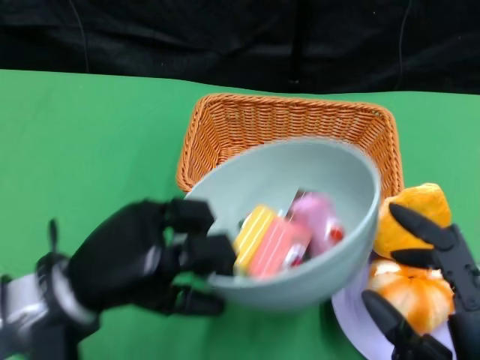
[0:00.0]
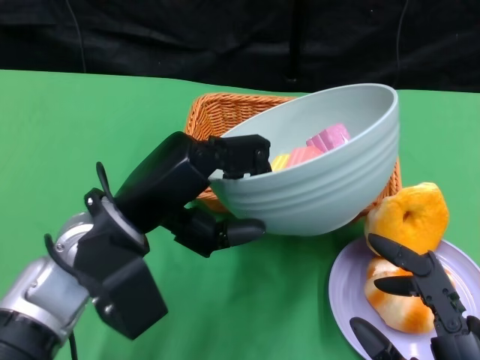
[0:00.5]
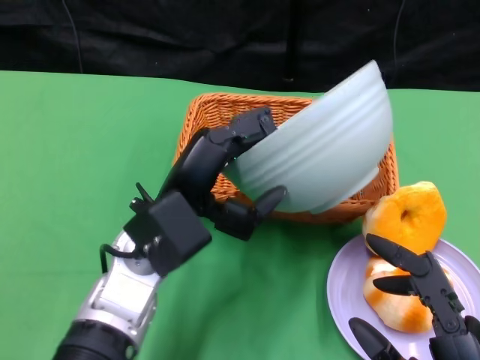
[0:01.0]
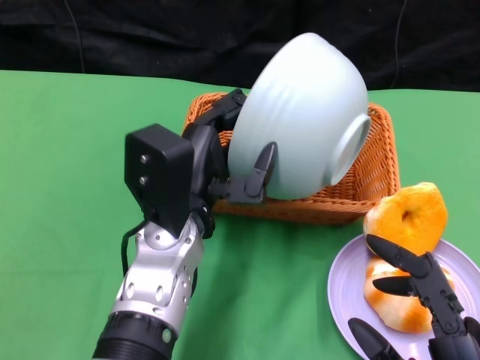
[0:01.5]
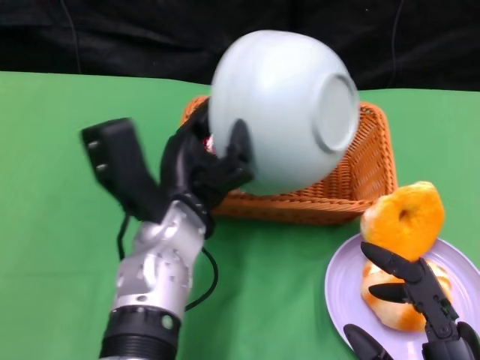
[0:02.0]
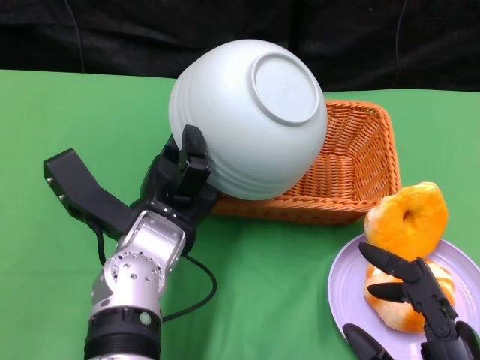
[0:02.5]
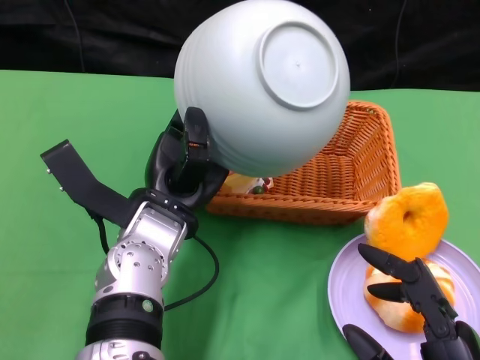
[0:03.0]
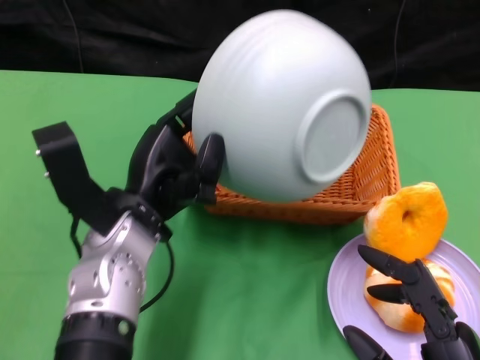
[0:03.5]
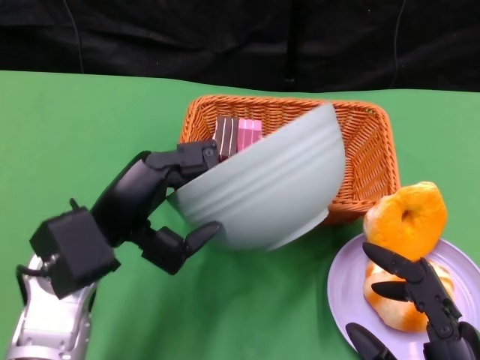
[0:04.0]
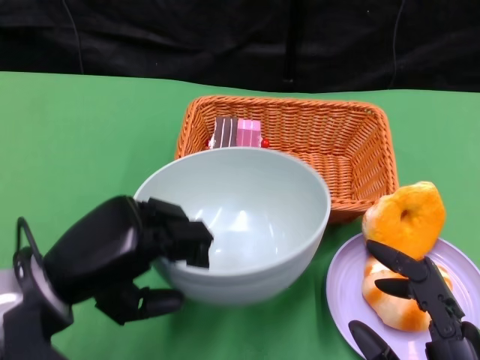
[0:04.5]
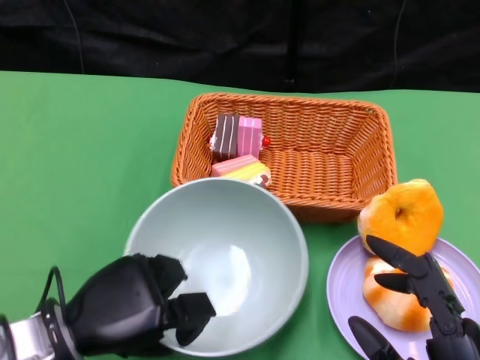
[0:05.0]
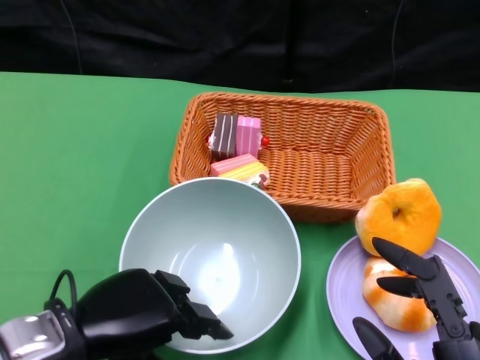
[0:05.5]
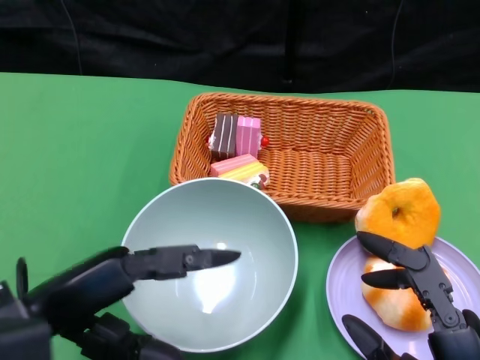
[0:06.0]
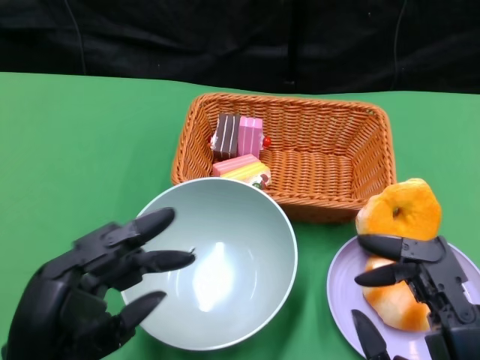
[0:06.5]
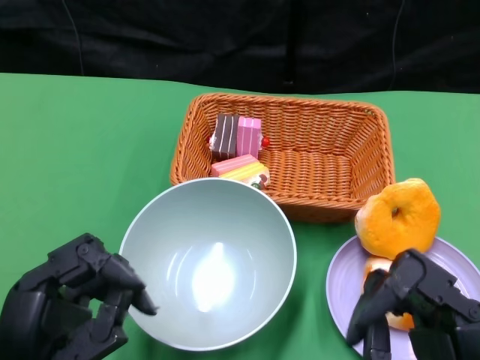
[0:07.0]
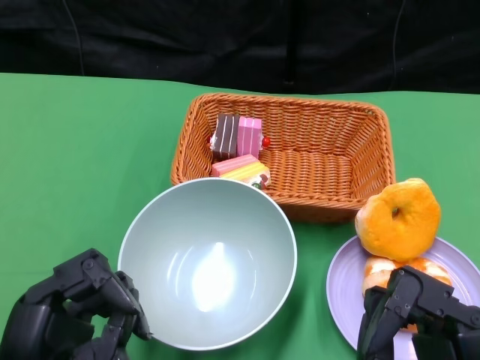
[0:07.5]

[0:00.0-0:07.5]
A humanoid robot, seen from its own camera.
Step, 0:00.0 to 0:02.5: Pour the cake into the basket with the left gripper.
Step, 0:03.0 to 0:05.5: Place the bowl on the table with the left gripper.
0:00.0 to 0:02.0: The left hand moves to the right and forward, roughly 15 cm.
0:02.0 to 0:04.0: The left hand moves to the left, approximately 10 cm.
0:04.0 to 0:05.5: The left hand travels backward by approximately 5 cm.
0:05.5 to 0:07.5: The left hand heads backward, covering about 5 cm.

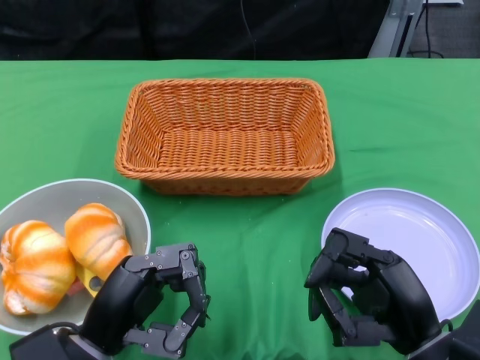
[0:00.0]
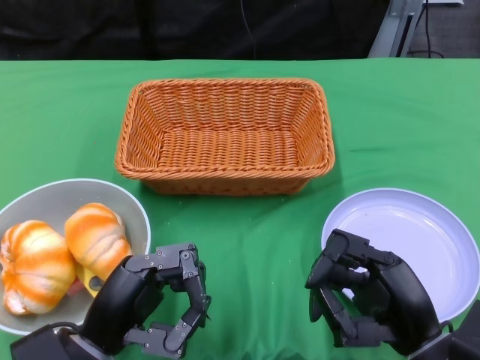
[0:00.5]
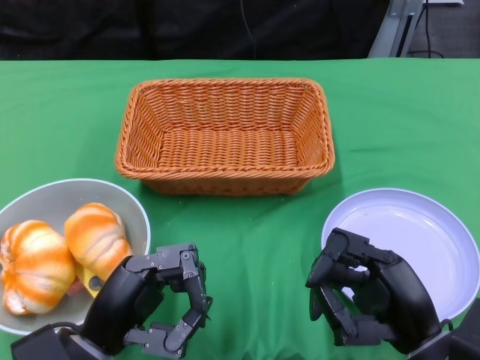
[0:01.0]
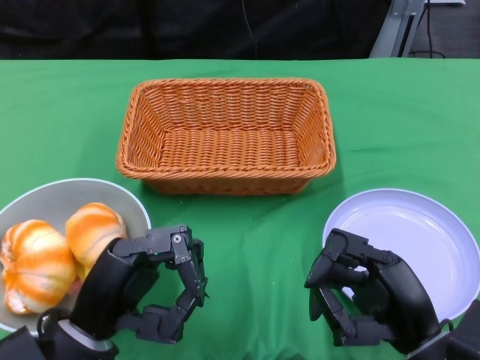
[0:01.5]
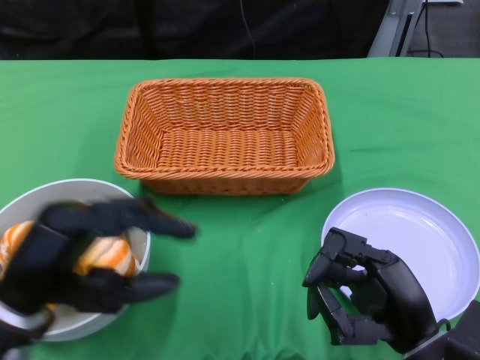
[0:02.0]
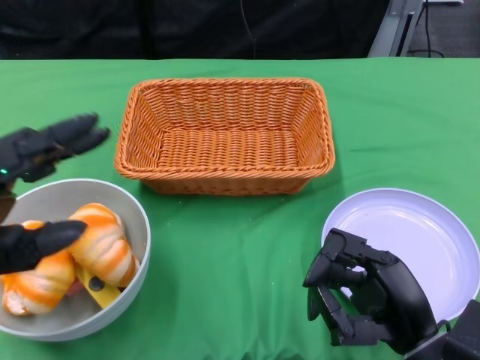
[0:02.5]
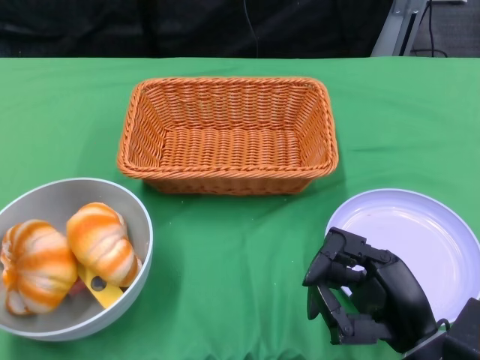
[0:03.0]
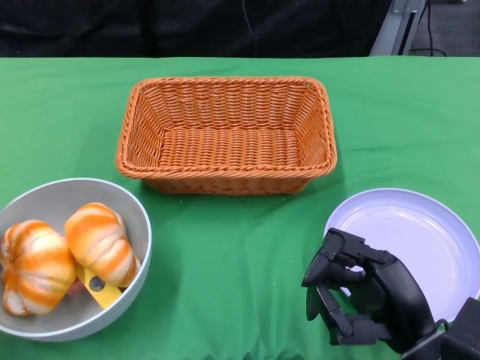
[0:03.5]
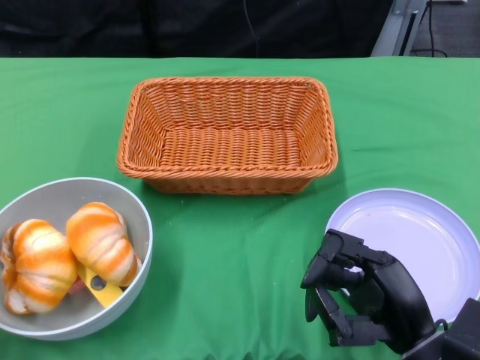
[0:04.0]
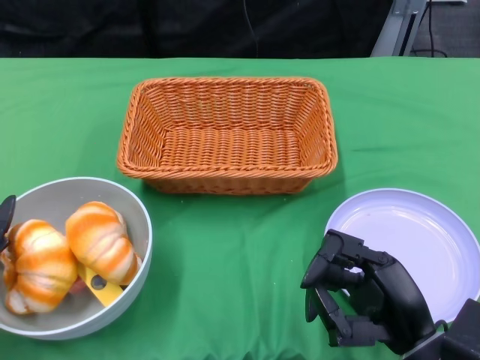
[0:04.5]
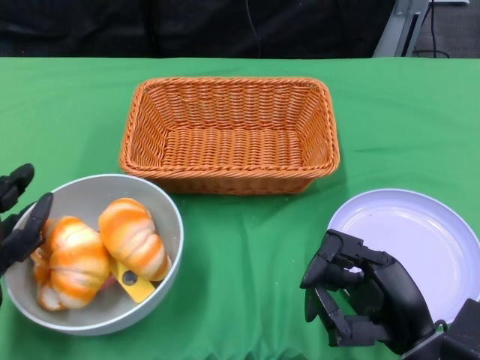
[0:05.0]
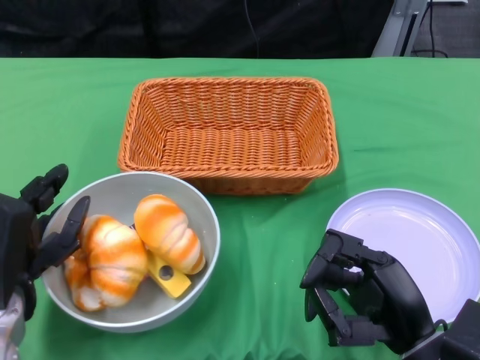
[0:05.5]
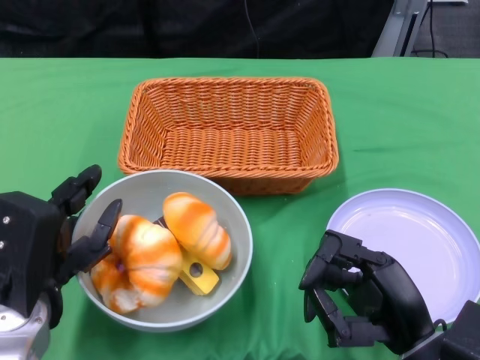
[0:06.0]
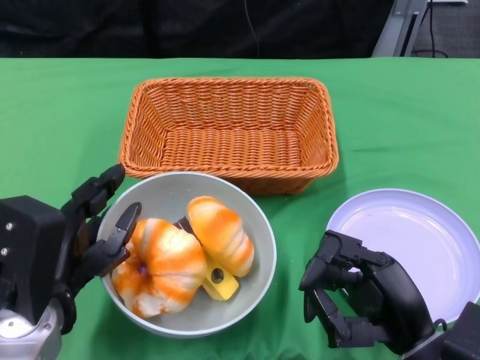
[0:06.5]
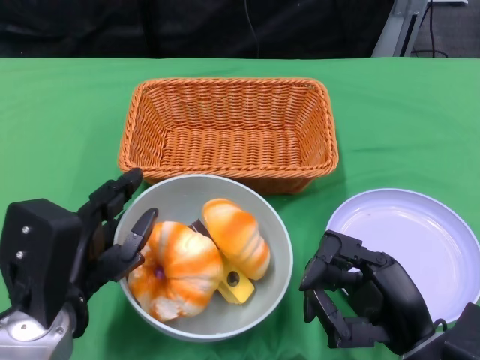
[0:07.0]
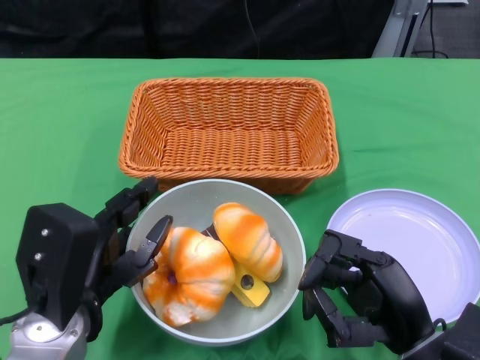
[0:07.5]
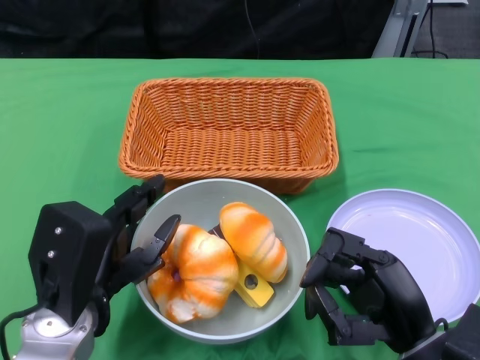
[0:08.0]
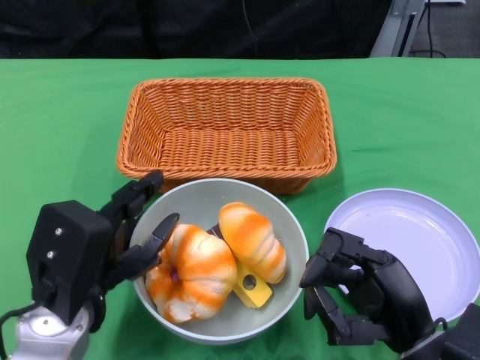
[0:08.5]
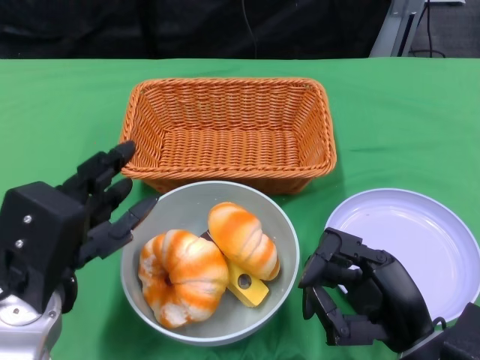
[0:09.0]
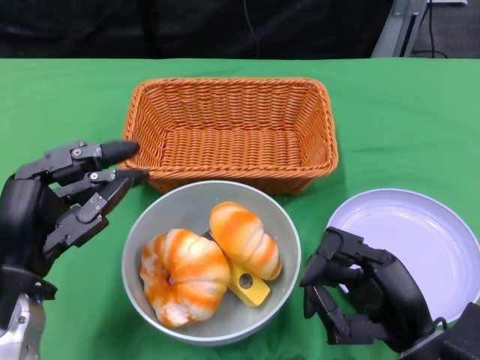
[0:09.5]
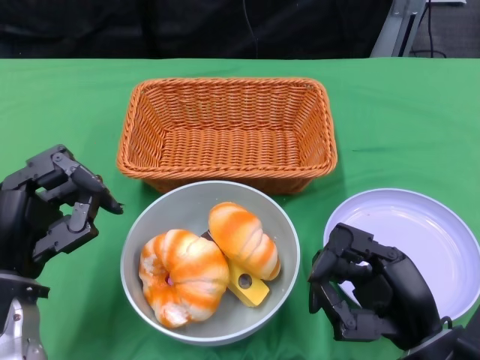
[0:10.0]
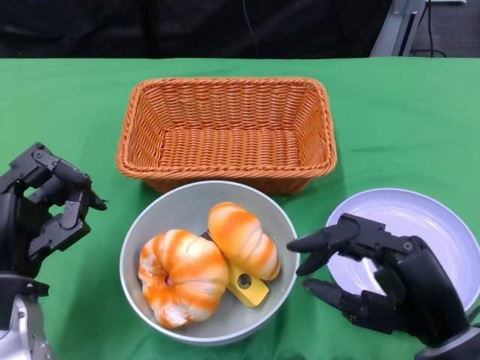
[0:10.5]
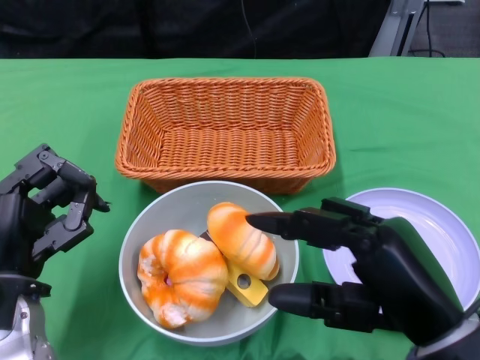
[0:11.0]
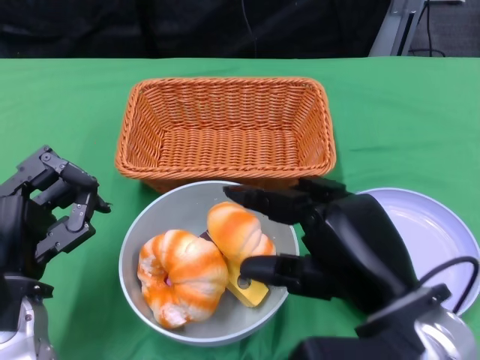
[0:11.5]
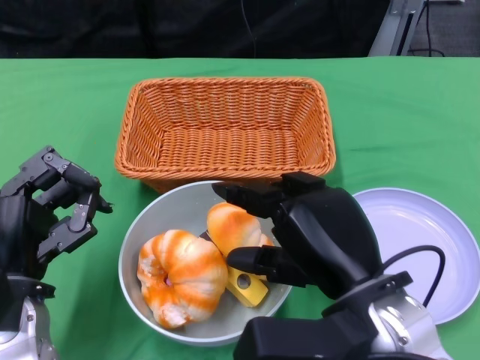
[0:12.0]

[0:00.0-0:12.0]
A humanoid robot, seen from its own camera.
Step, 0:00.0 to 0:08.5: Push the bowl to the center of the table using the left gripper.
0:02.0 to 0:04.0: The left hand goes approximately 10 cm to the left and downward.
0:04.0 to 0:06.0: The left hand shifts about 10 cm to the right.
0:08.0 to 0:10.0: The left hand shifts approximately 5 cm to the left.
0:10.0 to 0:12.0: The right hand is displaced upward and to the left by about 10 cm.

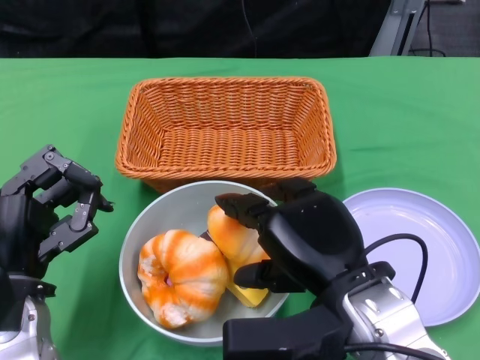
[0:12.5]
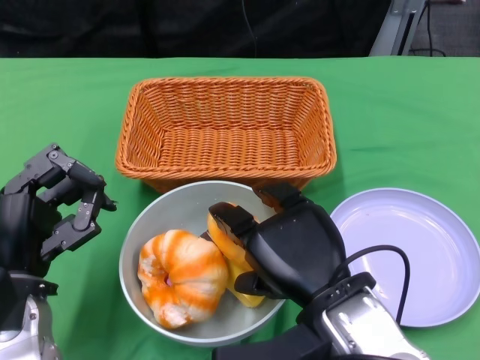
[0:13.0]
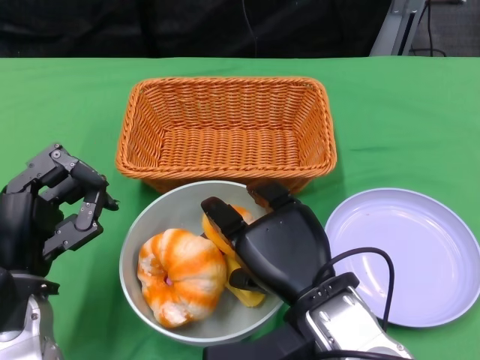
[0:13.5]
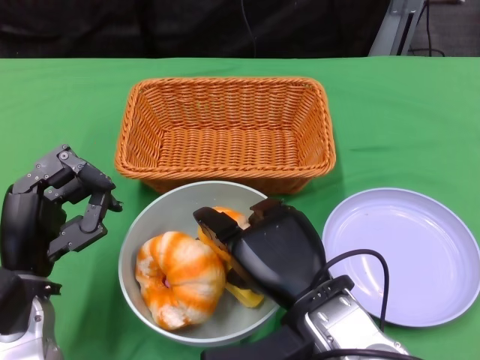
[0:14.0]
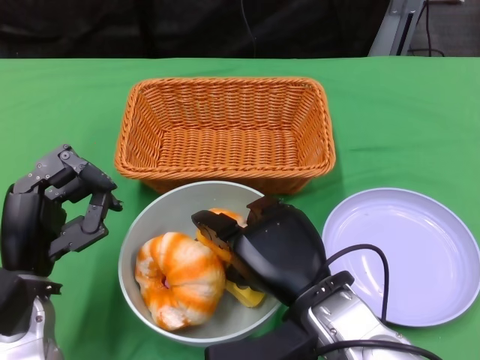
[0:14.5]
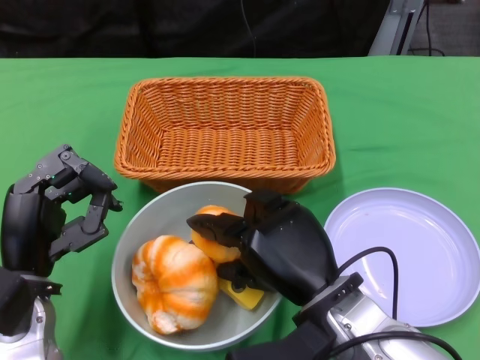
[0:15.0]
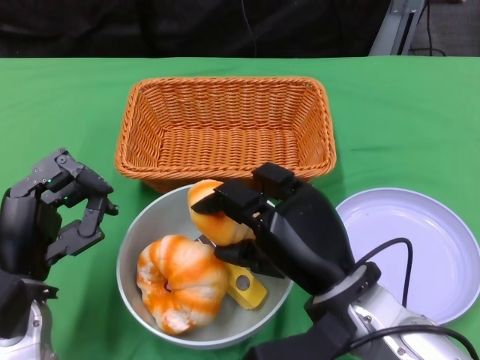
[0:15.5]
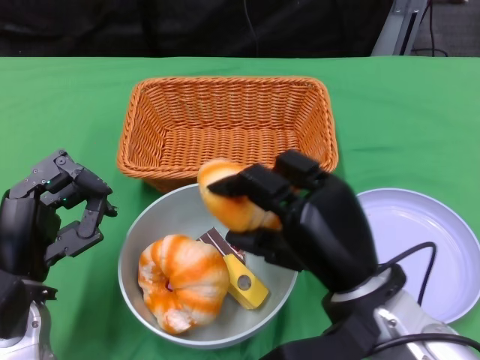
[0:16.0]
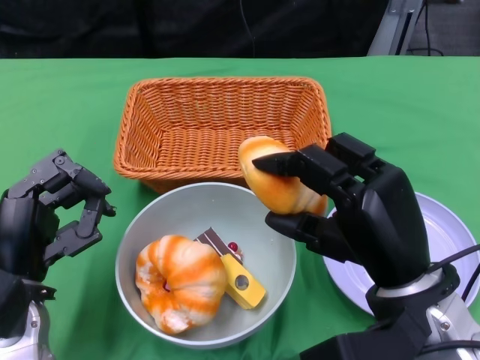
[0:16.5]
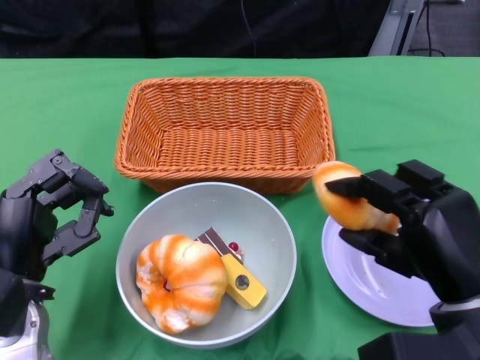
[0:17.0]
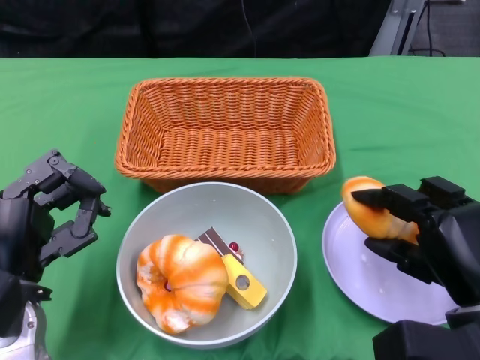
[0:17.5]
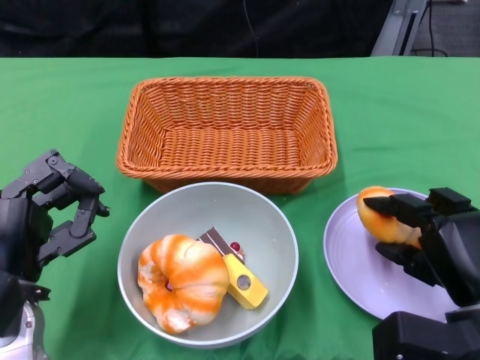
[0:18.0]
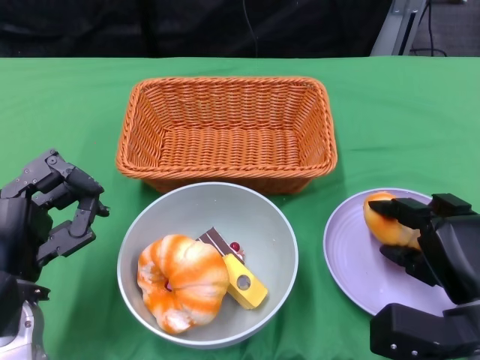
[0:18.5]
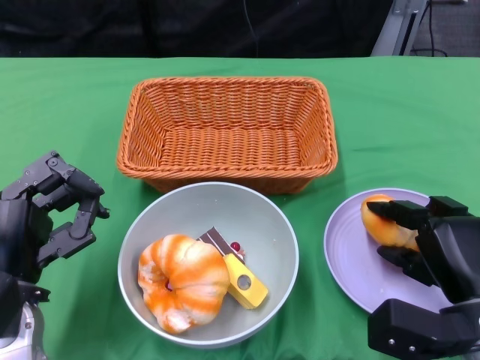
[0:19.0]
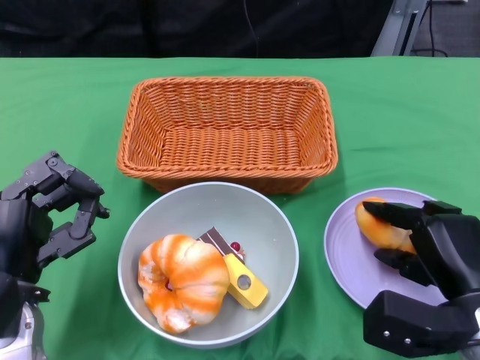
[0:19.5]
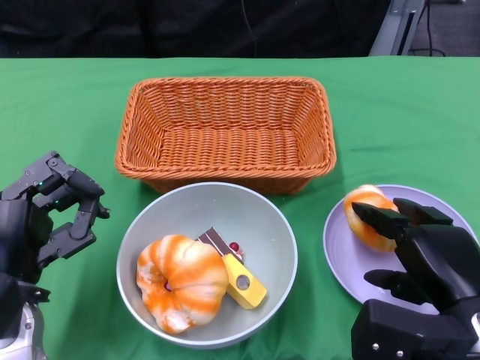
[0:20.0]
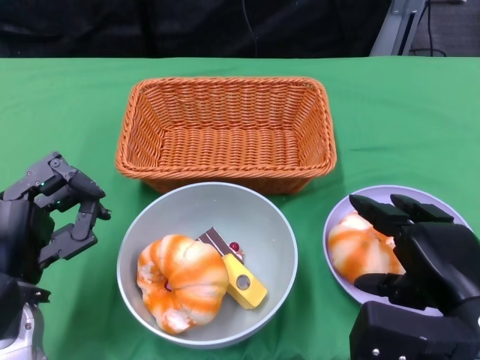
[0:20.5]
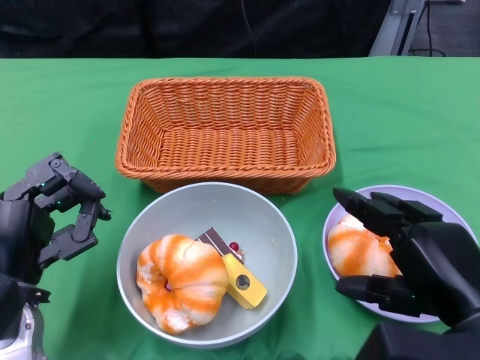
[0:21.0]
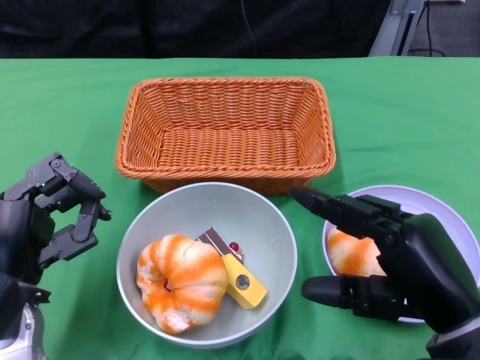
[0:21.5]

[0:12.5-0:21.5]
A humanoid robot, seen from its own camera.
Step, 0:12.5 to 0:20.5: Pick up the bread with the right gripper and place it on the plate.
0:12.5 to 0:14.5: The right hand shifts by roughly 5 cm.
0:14.5 to 0:17.0: The right hand is displaced to the right by some 15 cm.
0:17.0 to 0:19.5: The right hand travels downward by roughly 5 cm.
0:19.5 to 0:21.5: The right hand moves upward and backward, about 10 cm.
